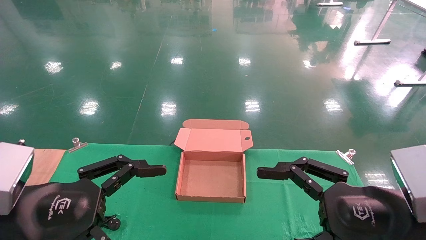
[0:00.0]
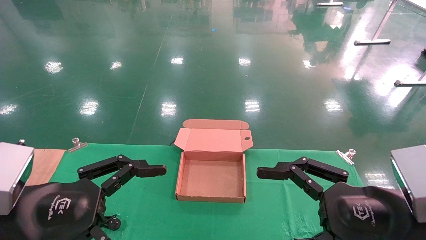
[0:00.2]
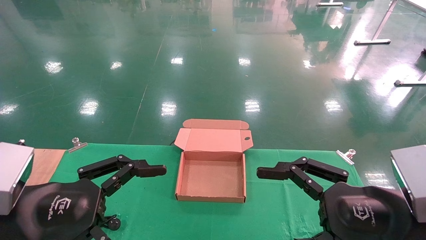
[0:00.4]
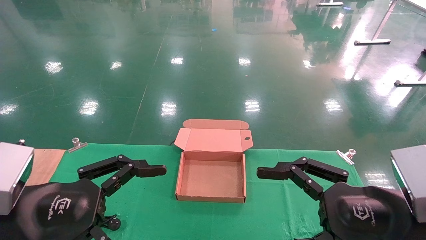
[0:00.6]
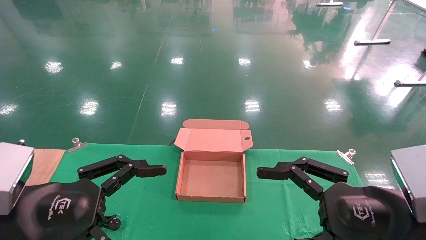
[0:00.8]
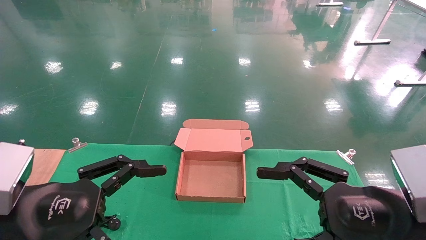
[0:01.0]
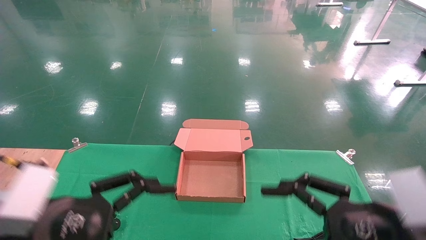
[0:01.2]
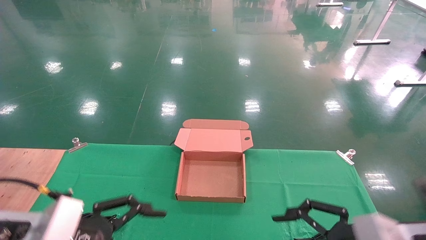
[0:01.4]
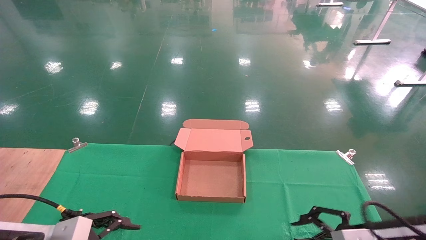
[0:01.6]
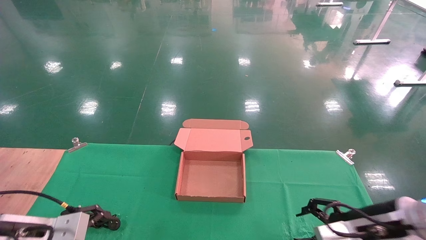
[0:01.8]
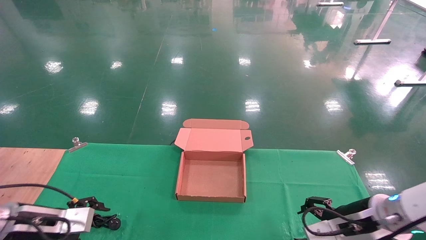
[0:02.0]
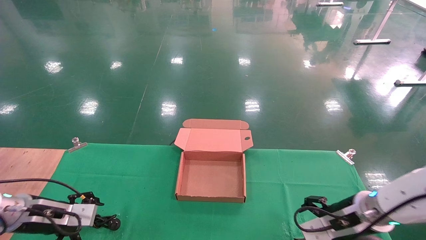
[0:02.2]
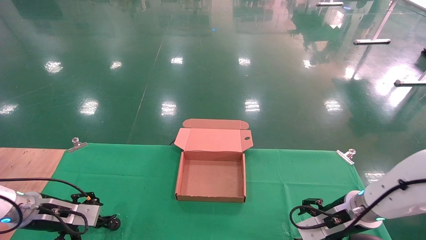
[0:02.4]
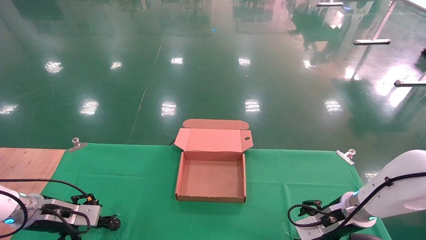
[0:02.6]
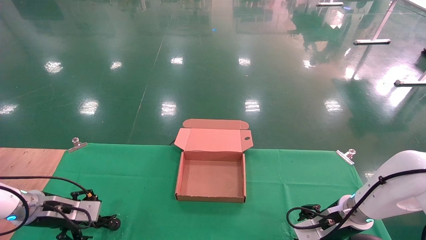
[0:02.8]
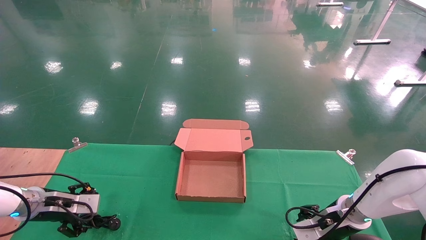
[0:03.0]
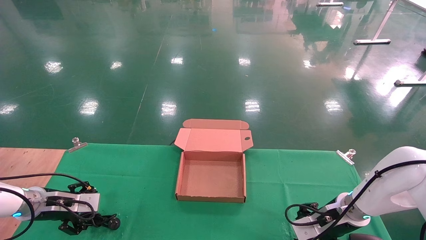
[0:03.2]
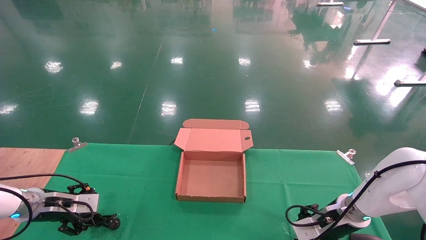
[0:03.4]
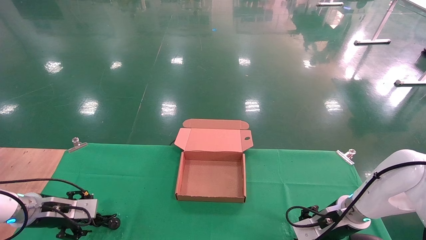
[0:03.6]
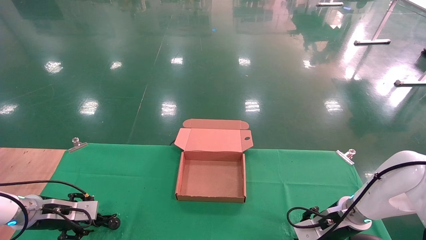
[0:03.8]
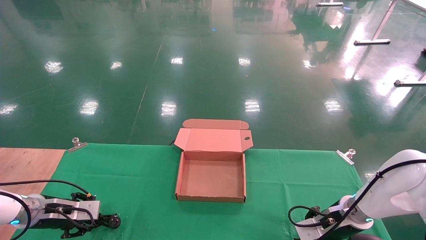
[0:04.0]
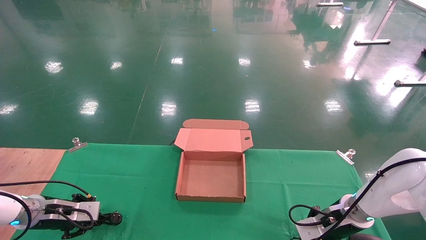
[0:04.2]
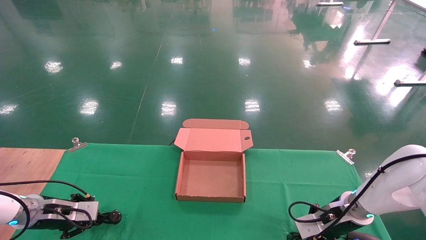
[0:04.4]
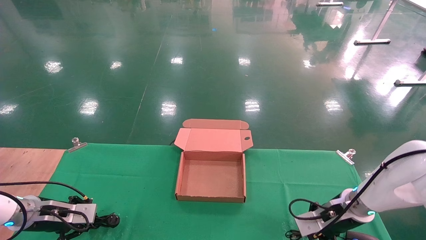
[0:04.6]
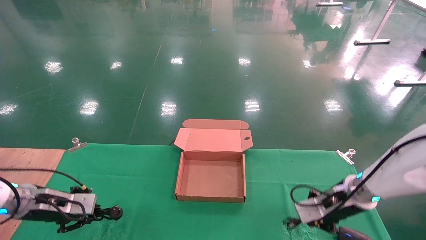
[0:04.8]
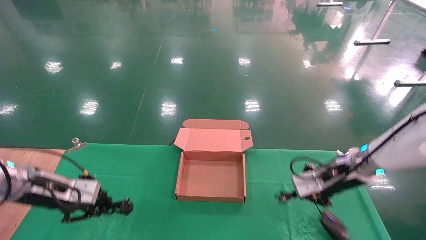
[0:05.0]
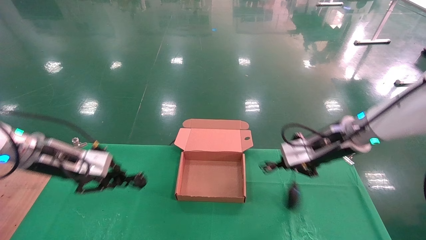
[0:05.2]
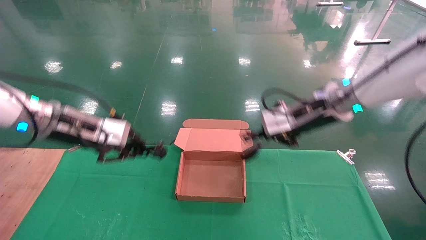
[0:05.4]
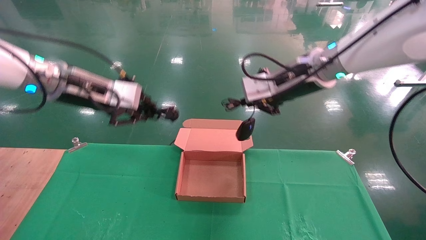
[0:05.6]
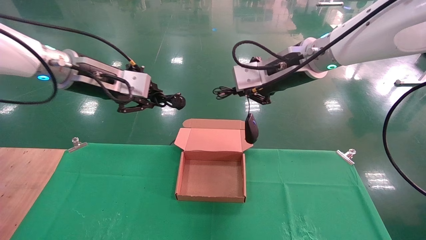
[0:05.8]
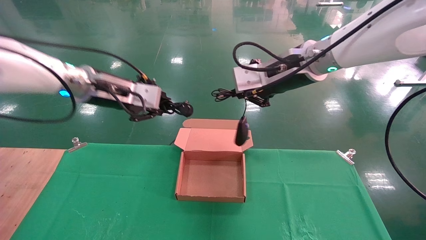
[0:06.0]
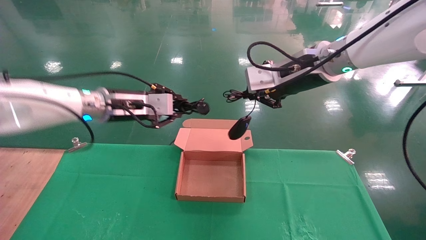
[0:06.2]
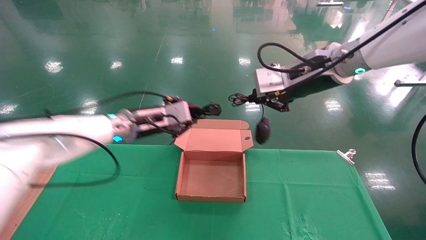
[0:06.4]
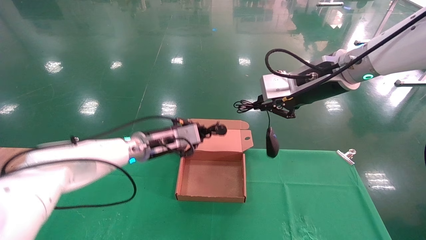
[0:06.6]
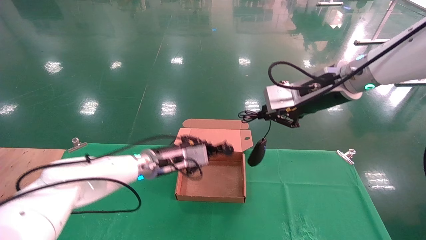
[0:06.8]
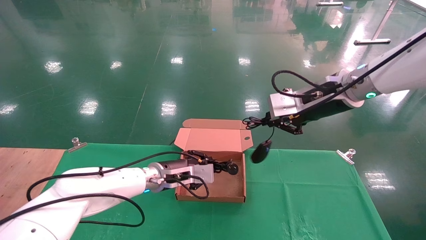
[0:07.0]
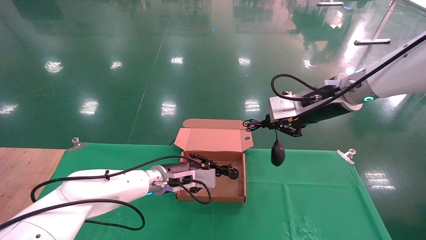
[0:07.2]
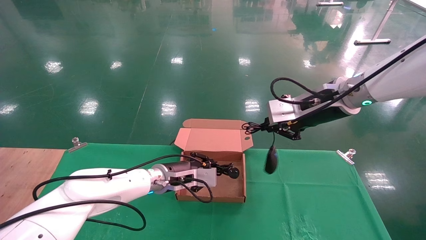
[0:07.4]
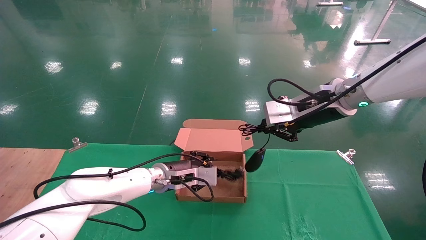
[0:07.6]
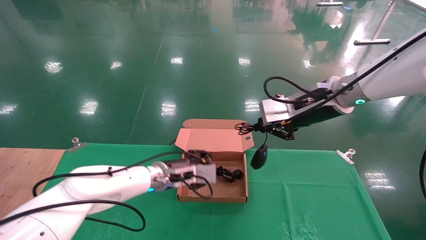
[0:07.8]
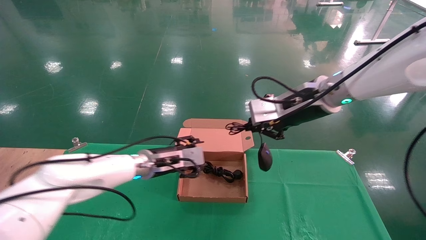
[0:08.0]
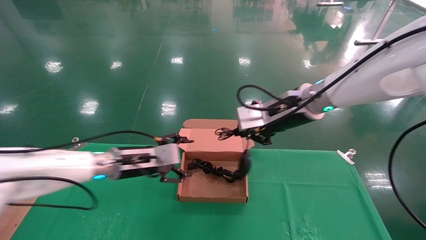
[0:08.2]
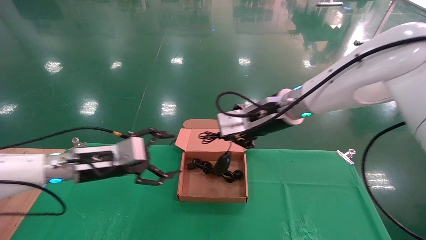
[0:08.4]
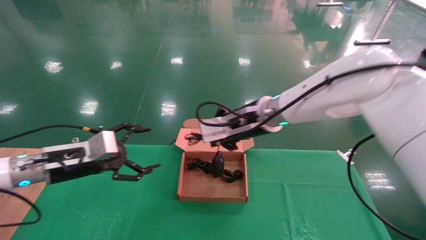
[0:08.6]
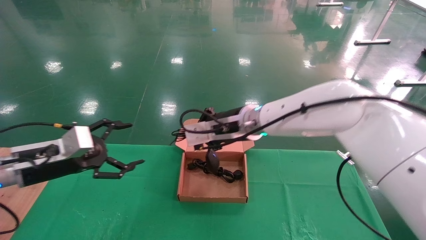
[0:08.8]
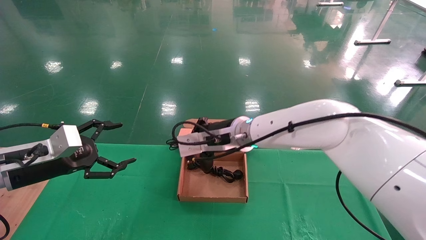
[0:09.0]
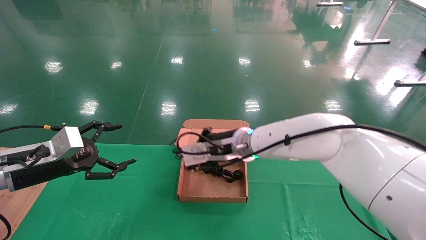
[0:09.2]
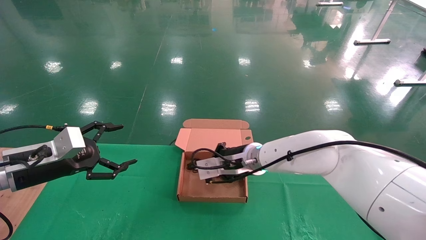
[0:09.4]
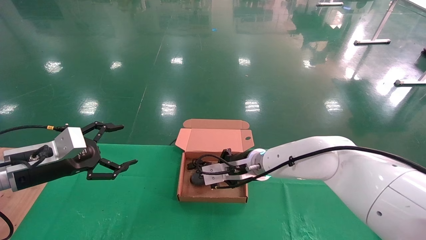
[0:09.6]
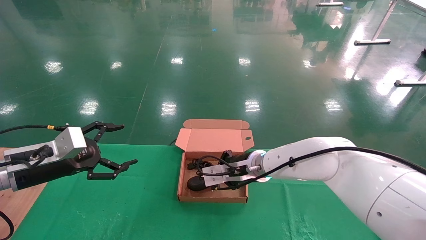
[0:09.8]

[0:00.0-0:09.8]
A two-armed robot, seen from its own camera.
Step, 0:01.6 to 0:05.2: Grab and lift both the mouse and power cord from the accessory packaging area at the same time.
0:00.0 to 0:01.4: The left gripper heads downward, covering roughly 5 cm. The right gripper shifts by about 5 cm.
0:01.4 to 0:02.8: The left gripper moves forward, to the left and downward, some 25 cm; the right gripper shifts about 20 cm forward and downward.
0:02.8 to 0:04.2: The right gripper closes up; the left gripper closes up.
0:04.2 to 0:05.6: The left gripper is displaced upward and to the right by about 30 cm. The right gripper goes some 30 cm upward.
0:05.6 to 0:07.0: The left gripper travels downward and to the right by approximately 25 cm.
0:07.0 to 0:08.4: The right gripper moves to the left, some 10 cm. The left gripper travels to the left, backward and upward by approximately 15 cm, and opens.
0:08.4 to 0:09.8: The left gripper goes about 10 cm to the left, while the right gripper is displaced downward by approximately 15 cm.

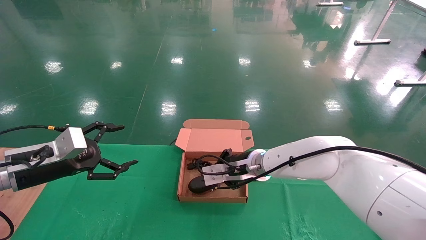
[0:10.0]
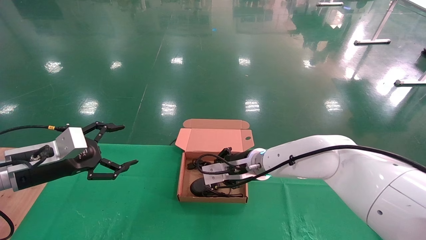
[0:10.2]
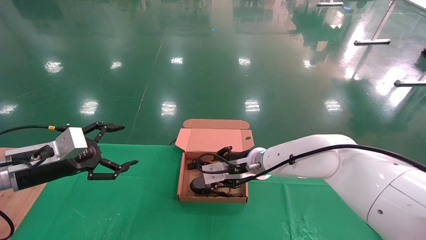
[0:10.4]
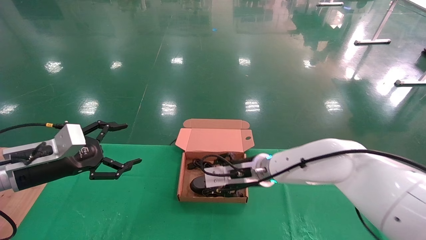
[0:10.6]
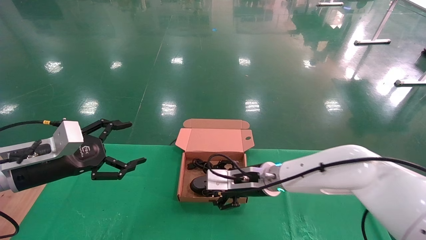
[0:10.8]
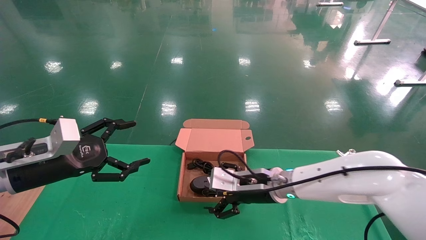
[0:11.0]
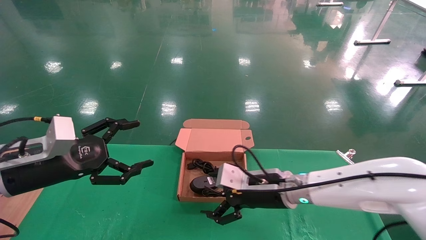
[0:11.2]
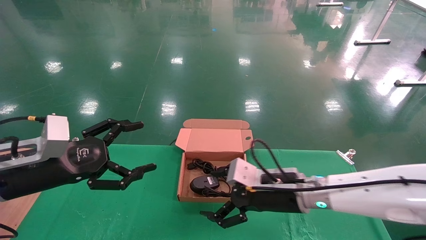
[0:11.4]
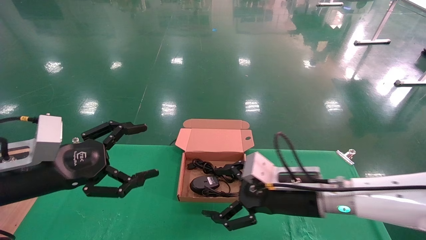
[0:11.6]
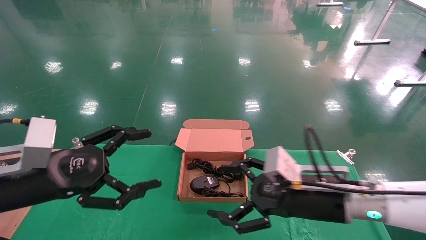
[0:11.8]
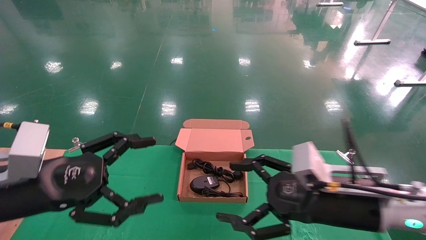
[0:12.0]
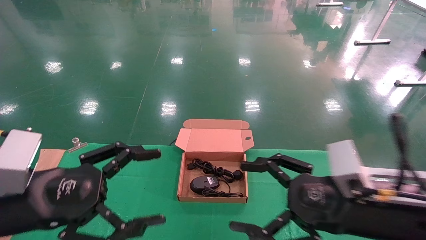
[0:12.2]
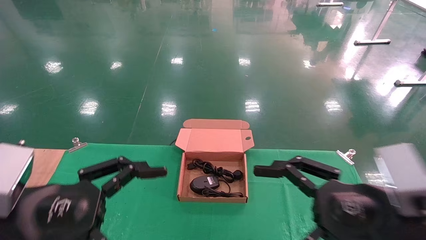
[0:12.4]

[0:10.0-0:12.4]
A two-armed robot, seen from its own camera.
0:10.0 to 0:11.2: The right gripper travels backward and to the right by some 10 cm, and opens its fingers. Meanwhile the left gripper moves approximately 5 cm.
0:11.2 to 0:12.4: The left gripper shifts some 15 cm backward and to the right. Meanwhile the right gripper travels backward, to the right and upward by about 20 cm.

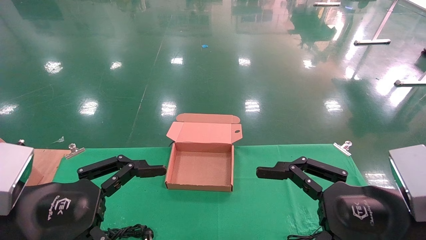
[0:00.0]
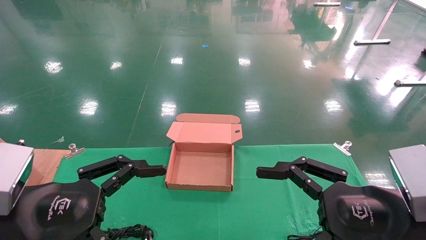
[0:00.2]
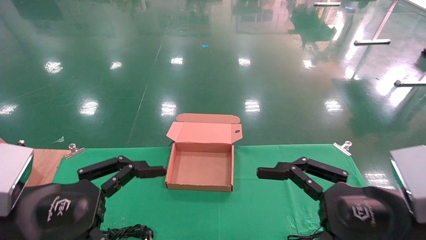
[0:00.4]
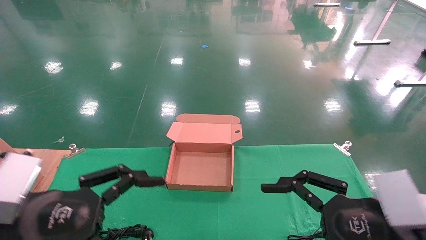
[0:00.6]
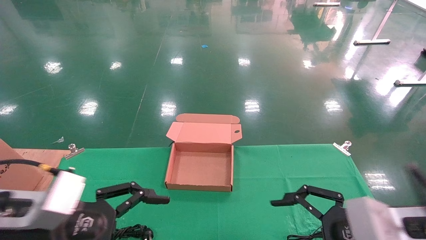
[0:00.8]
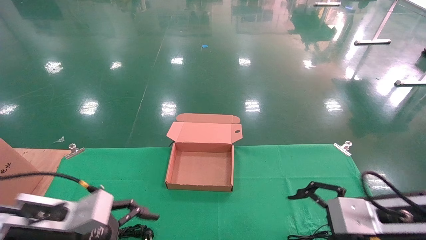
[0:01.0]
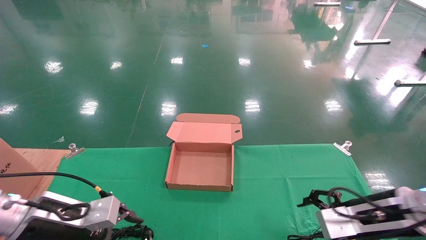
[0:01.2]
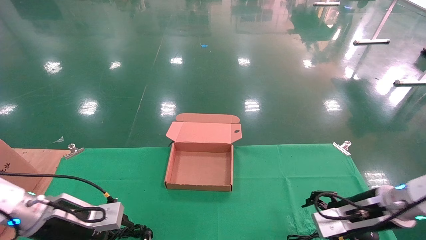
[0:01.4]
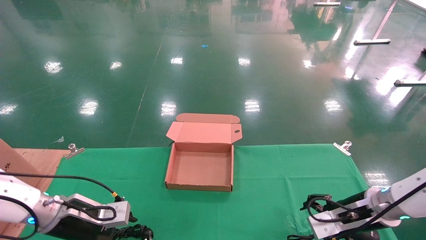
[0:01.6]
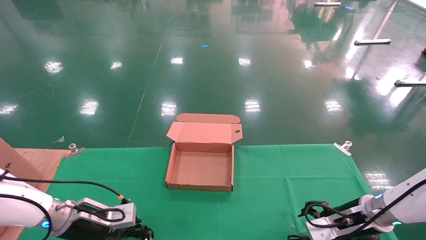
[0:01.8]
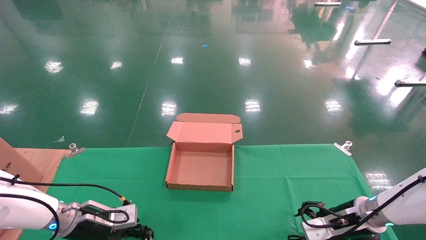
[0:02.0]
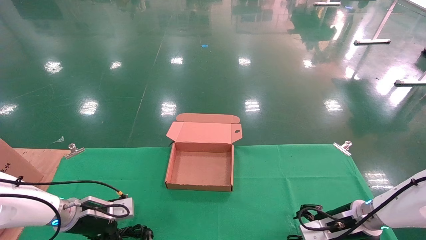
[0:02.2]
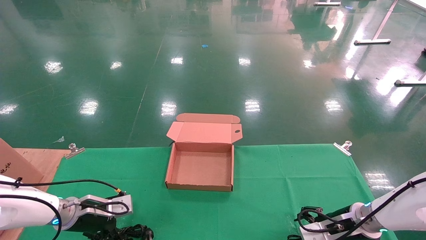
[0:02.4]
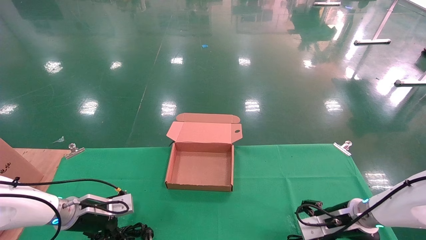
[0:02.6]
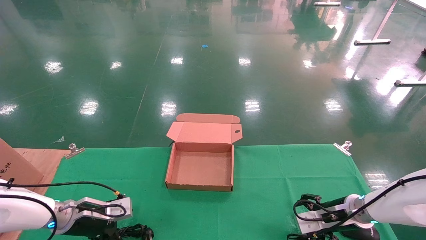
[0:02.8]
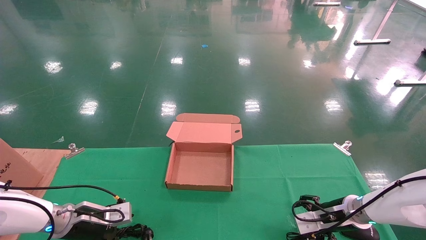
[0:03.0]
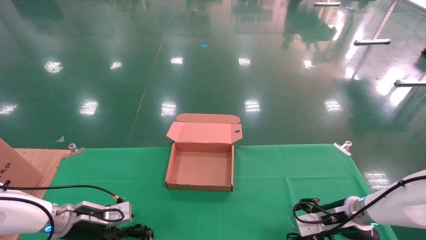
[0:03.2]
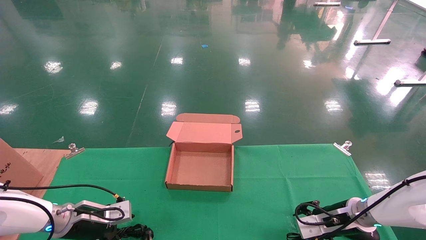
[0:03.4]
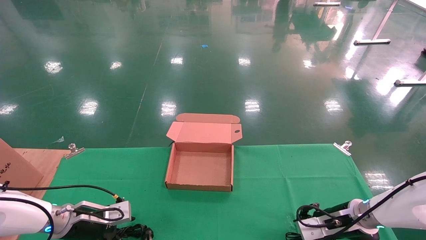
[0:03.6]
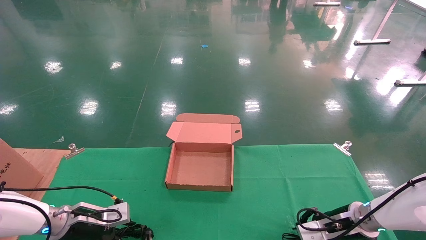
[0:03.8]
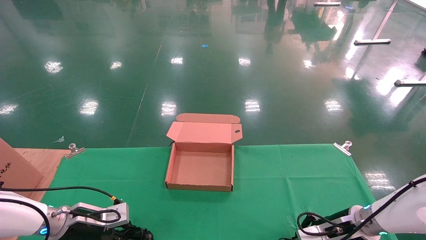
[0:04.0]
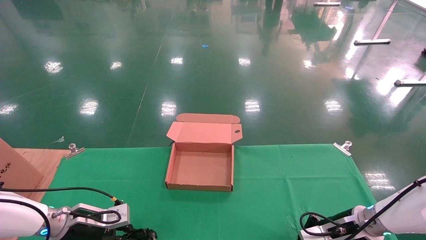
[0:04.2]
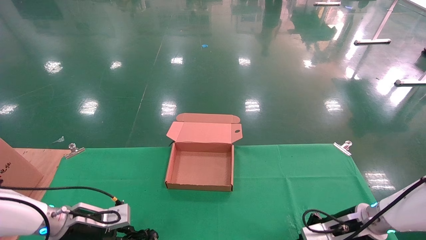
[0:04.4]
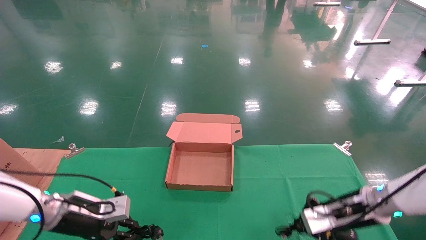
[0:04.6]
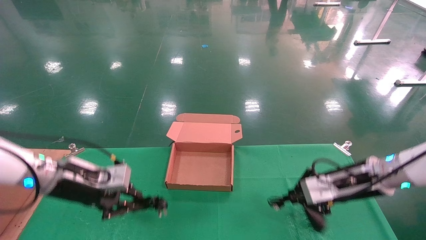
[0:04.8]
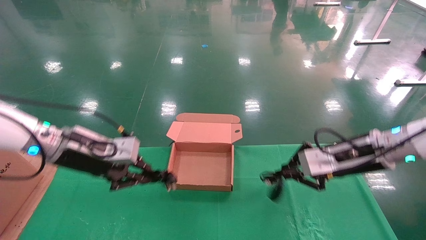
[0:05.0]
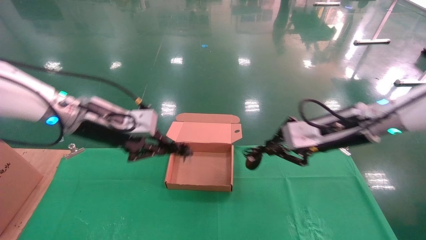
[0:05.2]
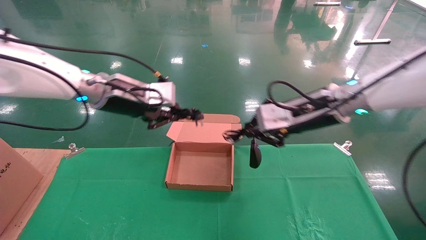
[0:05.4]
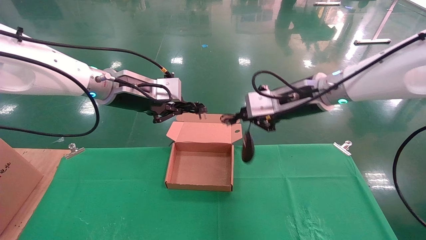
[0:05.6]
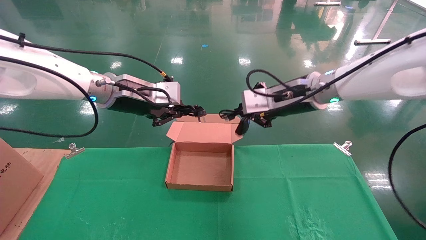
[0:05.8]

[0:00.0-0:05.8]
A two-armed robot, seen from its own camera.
Step, 0:01.2 to 0:04.8: Grab and lift both the mouse and power cord from the accessory packaging area at the same time.
0:00.0 to 0:01.4: Both grippers travel together forward and downward, some 20 cm.
0:01.4 to 0:02.8: The grippers both shift downward and forward by approximately 10 cm.
0:02.8 to 0:04.4: The right gripper closes its fingers; the left gripper closes its fingers.
0:04.4 to 0:05.8: The left gripper moves upward and to the right, roughly 30 cm. The right gripper shifts roughly 30 cm upward and to the left.
